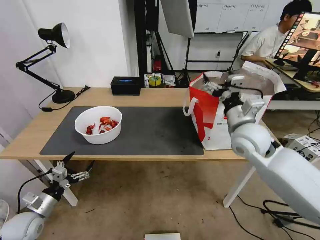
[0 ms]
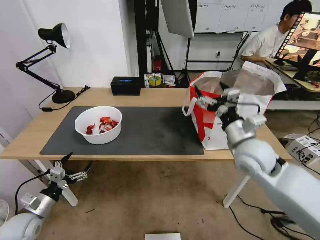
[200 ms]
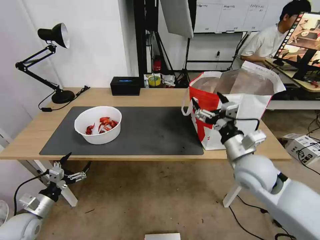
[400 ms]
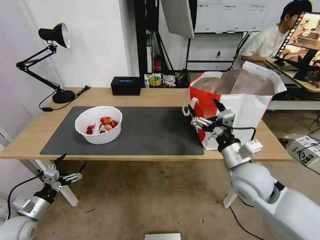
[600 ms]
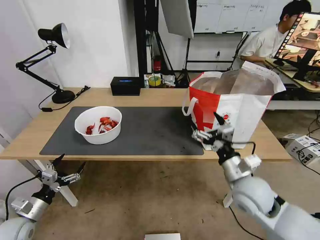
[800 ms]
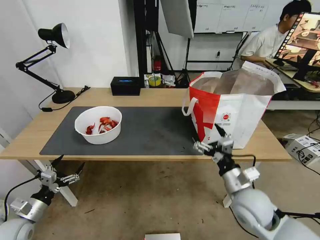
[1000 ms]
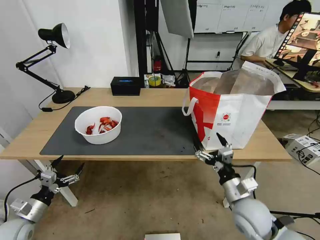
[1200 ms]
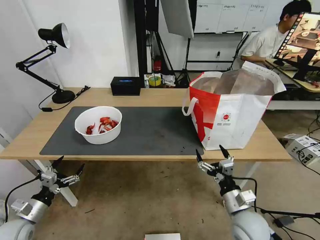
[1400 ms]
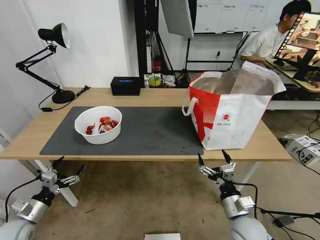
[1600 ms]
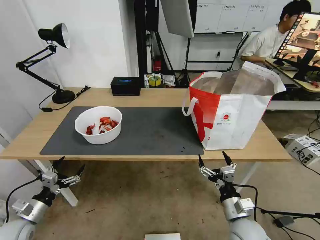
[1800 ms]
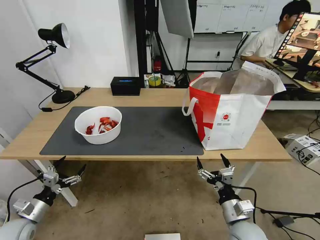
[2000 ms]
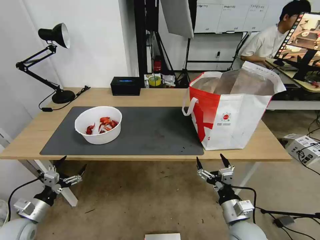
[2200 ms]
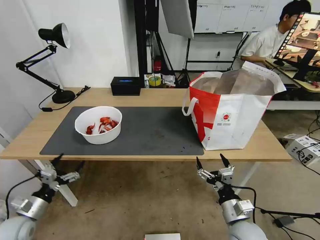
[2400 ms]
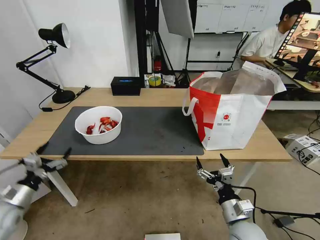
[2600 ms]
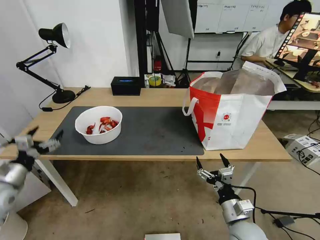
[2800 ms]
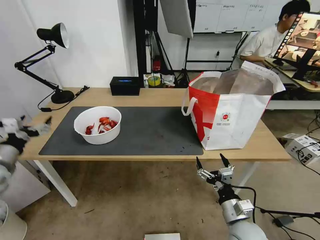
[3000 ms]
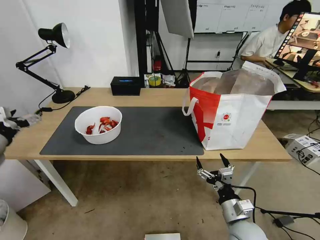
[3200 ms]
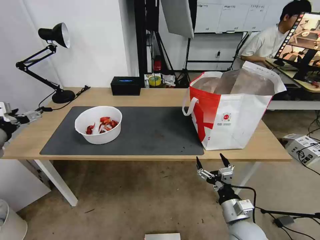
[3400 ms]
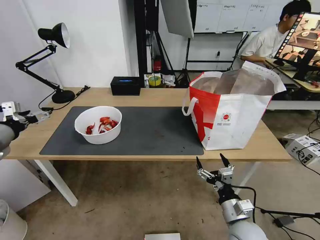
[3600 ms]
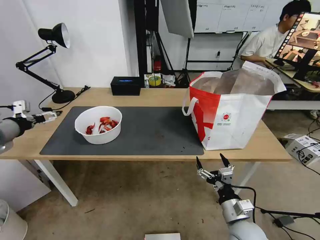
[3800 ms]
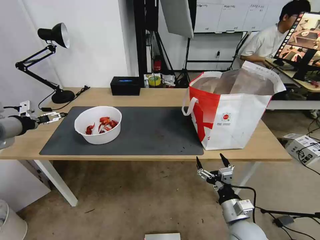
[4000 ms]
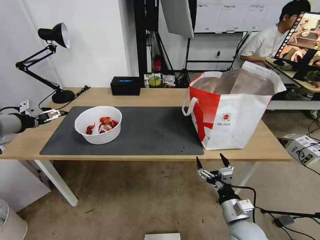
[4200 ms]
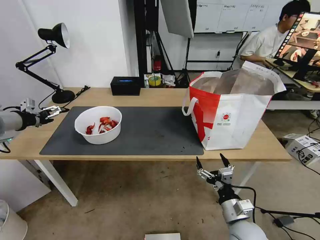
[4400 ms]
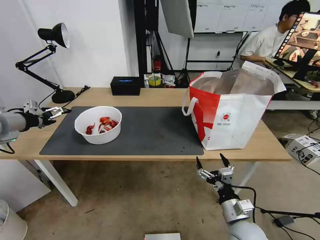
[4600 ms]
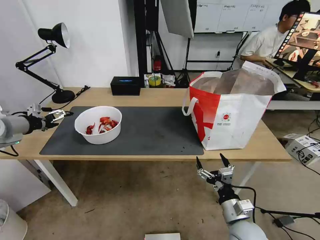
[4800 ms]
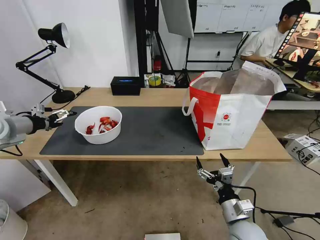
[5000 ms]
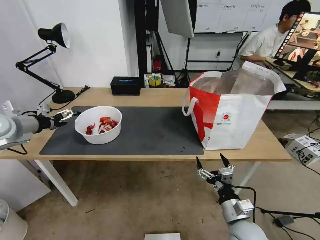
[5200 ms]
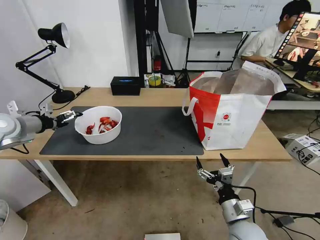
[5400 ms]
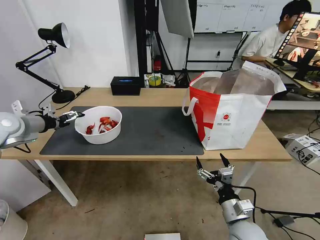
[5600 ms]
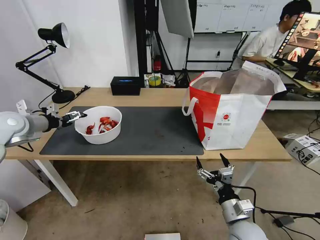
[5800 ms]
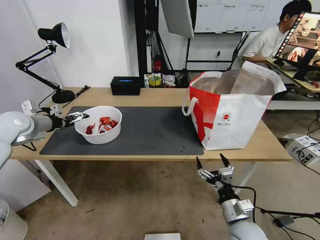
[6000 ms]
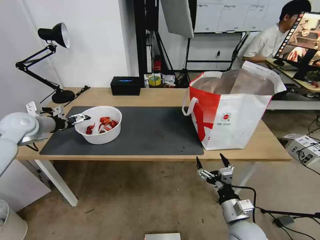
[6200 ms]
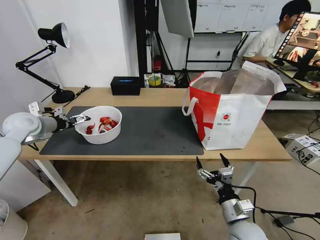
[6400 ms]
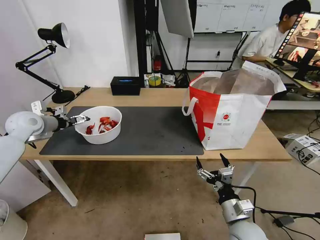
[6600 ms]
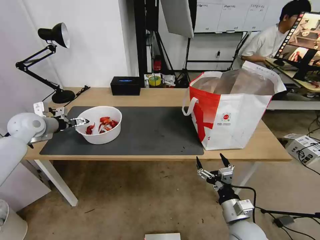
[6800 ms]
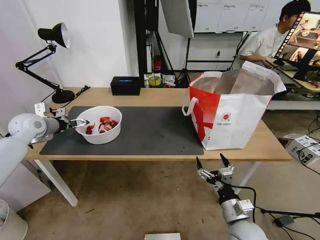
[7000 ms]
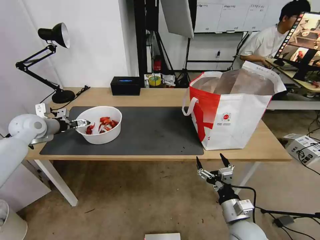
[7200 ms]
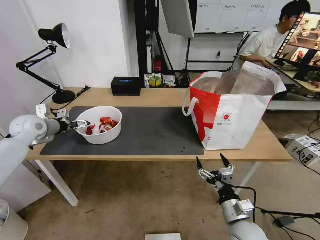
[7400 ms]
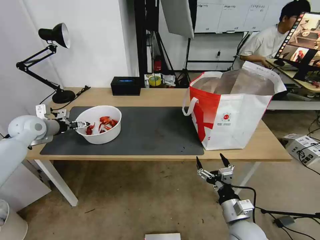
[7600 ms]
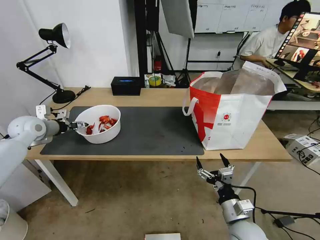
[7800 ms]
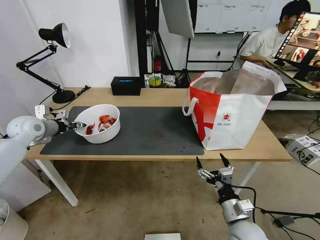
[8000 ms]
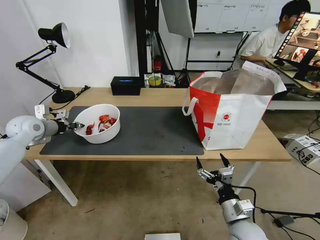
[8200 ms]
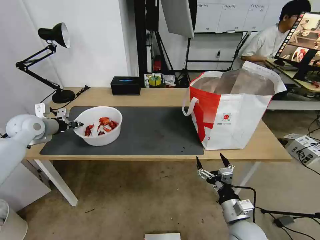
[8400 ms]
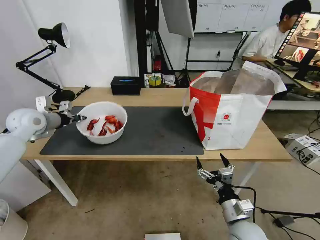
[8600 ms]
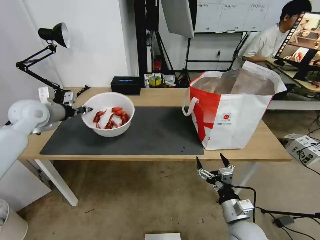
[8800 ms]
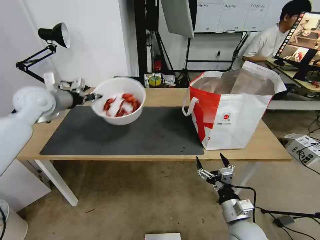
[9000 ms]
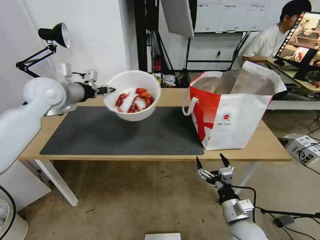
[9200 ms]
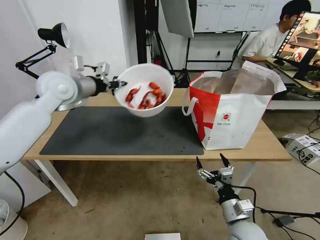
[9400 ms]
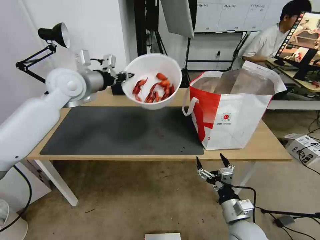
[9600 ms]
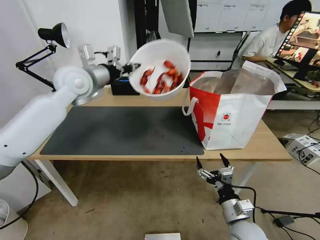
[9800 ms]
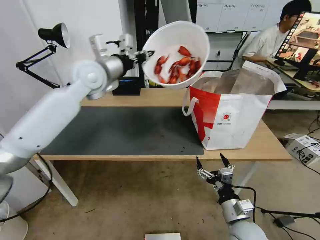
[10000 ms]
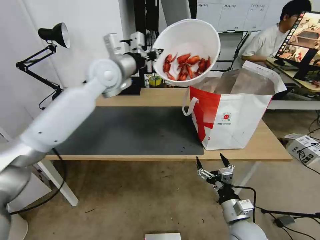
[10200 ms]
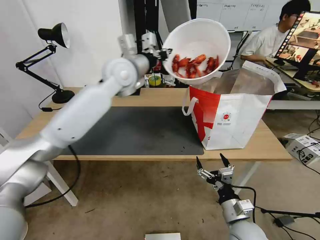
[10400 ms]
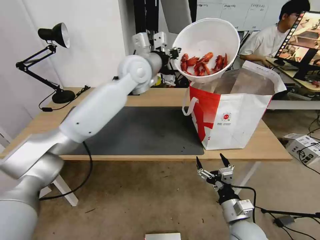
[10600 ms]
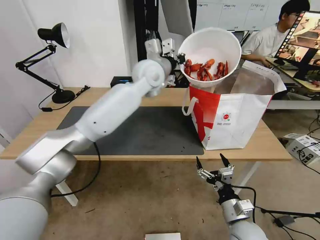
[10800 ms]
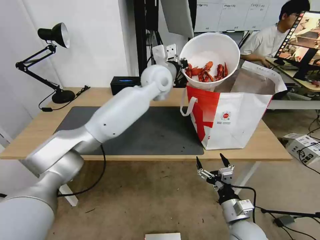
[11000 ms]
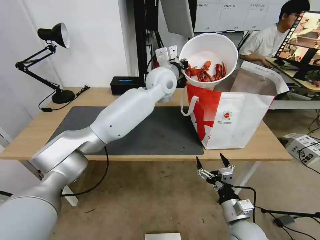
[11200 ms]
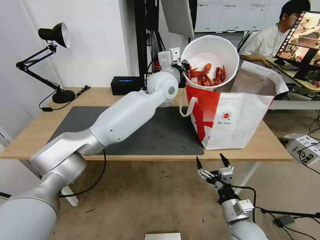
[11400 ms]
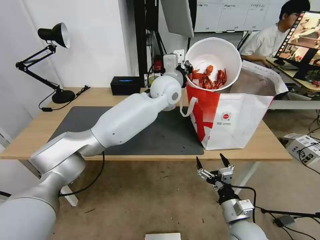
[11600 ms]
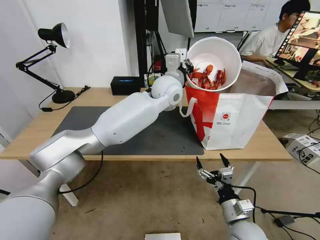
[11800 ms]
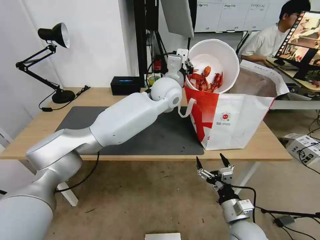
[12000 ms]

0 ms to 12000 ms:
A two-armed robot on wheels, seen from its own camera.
Task of the whole recording: Pick up the trash from the table and place it into the takeout bag.
0 ms to 1600 ms: The right gripper shifts some 30 cm downward and backward.
1600 ms to 3000 ms: The left gripper moves upward and forward, roughly 20 cm.
3000 ms to 4400 ms: The left gripper heads upward and forward, covering approximately 15 cm.
4400 ms to 6000 ms: The left gripper is displaced forward and downward by approximately 10 cm.
6000 ms to 7600 ms: There are only small adjustments of the grippers.
7600 ms to 9000 ms: The left gripper is displaced upward and to the right by some 15 cm, and closes its fingers.
9000 ms to 10400 ms: The left gripper moves to the right, about 25 cm.
10400 ms to 12000 ms: The left gripper is displaced to the right and downward by some 15 cm.

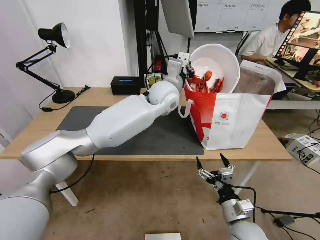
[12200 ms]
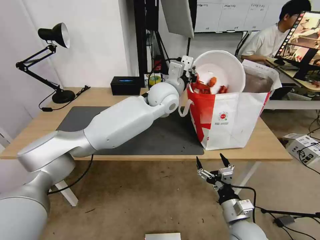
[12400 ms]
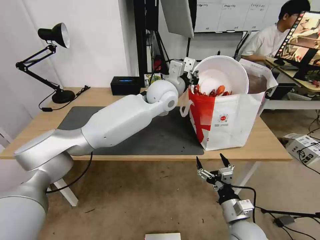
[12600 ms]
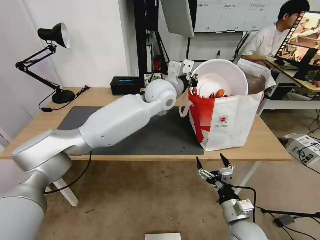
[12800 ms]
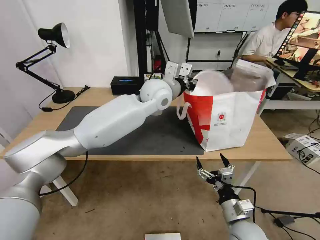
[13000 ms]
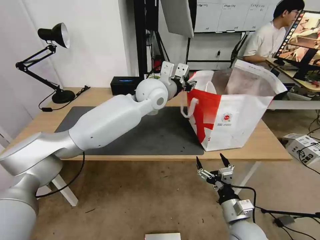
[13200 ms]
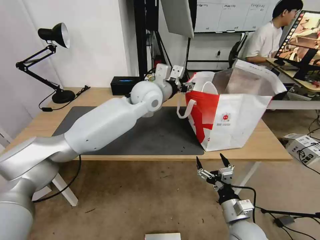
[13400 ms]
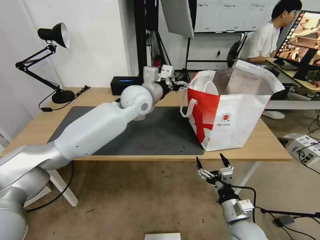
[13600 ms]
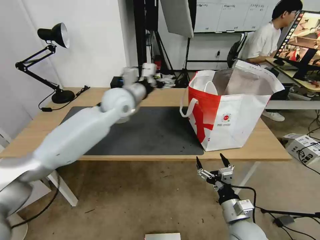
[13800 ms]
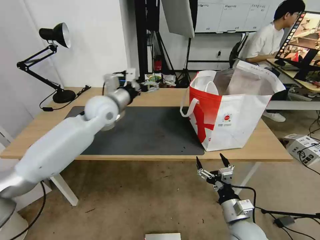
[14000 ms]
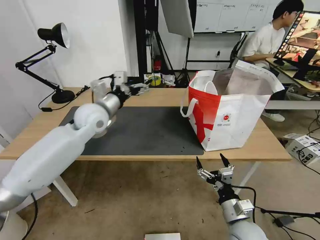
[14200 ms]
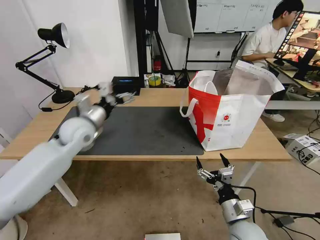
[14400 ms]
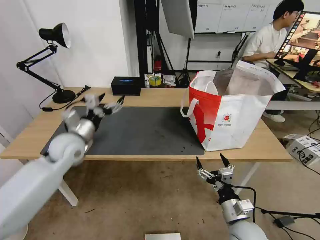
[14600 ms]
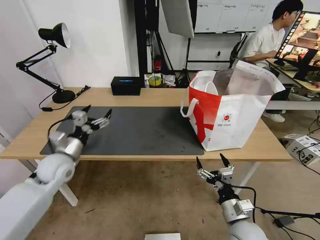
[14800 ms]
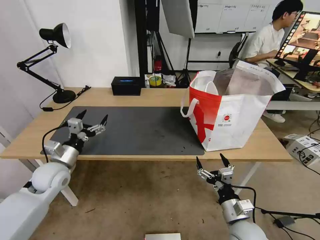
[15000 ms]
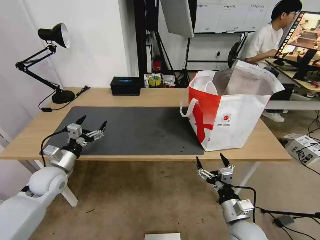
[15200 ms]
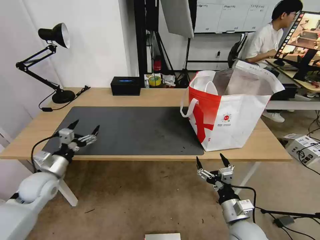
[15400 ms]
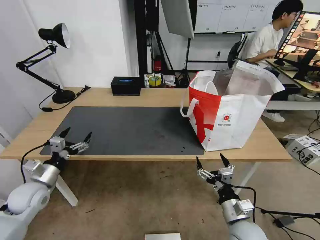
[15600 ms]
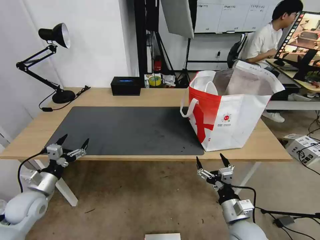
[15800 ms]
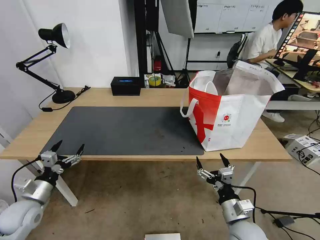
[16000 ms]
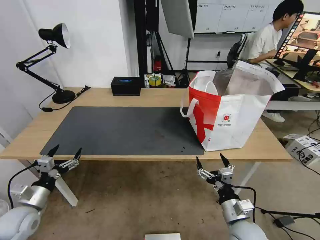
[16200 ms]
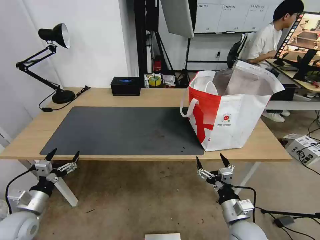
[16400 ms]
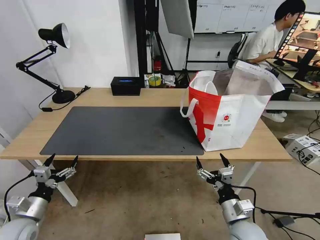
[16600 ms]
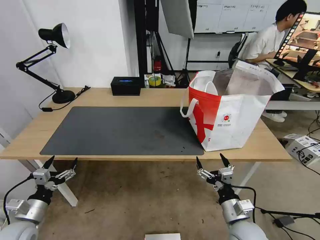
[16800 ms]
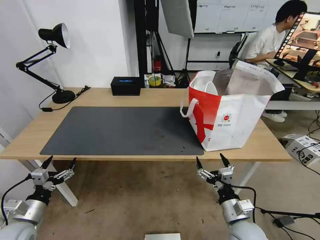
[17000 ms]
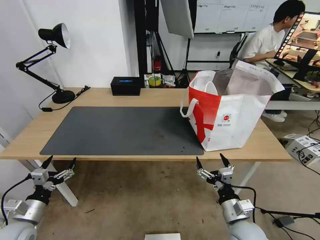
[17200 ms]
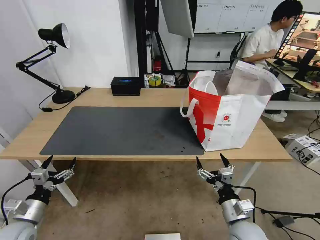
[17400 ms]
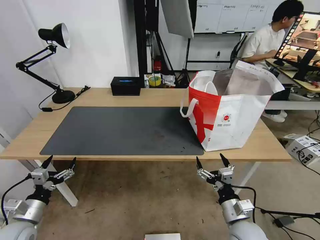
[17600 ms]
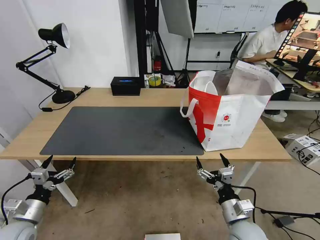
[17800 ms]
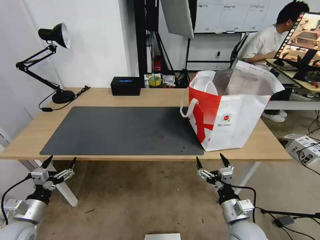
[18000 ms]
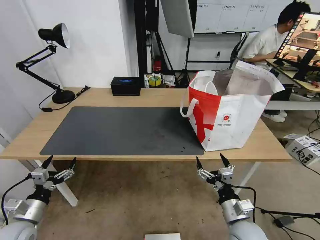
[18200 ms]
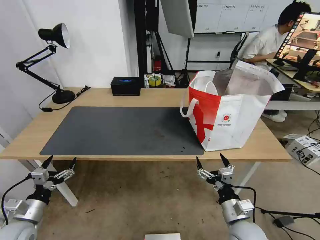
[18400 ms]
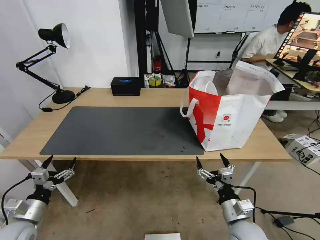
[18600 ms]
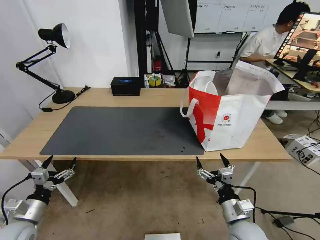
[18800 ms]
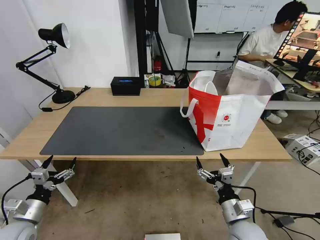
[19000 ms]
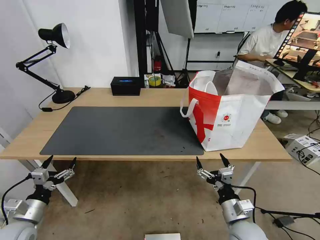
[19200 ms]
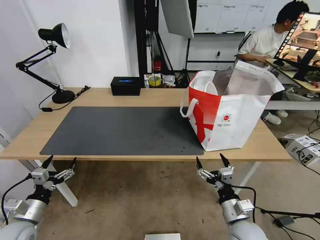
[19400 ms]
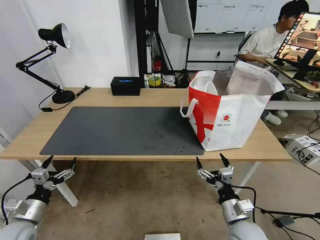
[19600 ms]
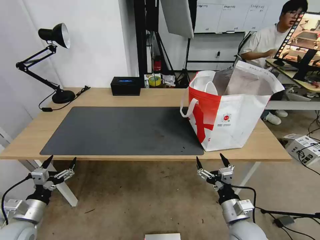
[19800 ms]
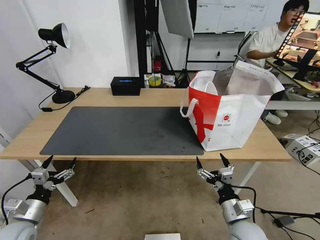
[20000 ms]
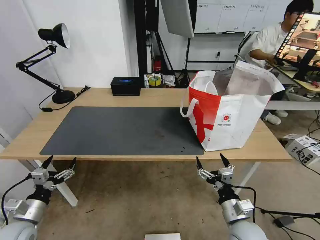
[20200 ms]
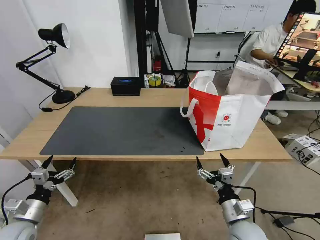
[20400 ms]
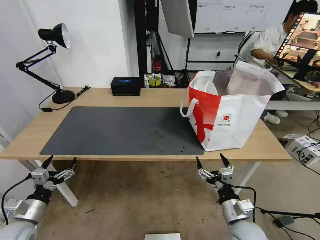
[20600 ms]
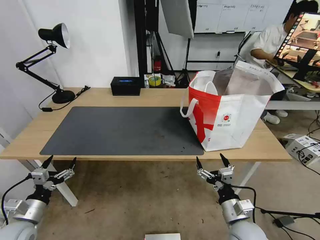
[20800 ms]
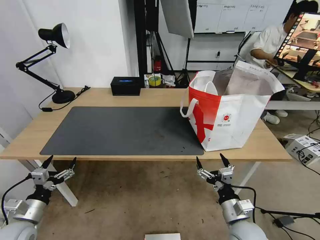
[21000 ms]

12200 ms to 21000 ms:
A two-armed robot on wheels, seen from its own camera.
Task of the whole recording: Pick up the trash from the table and place it into the takeout bag.
12200 ms to 13600 ms: The left gripper shifts some 10 cm to the left, and opens up.
13600 ms to 15200 ms: The left gripper goes roughly 40 cm to the left, downward and backward.
15200 ms to 16600 ms: The left gripper is displaced backward, downward and to the left by some 15 cm.
16600 ms to 21000 ms: Both grippers stay put.

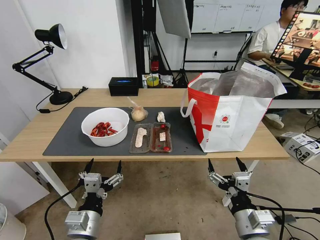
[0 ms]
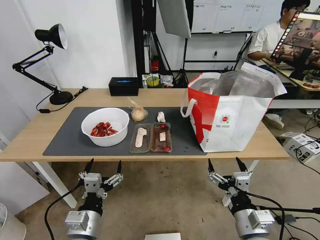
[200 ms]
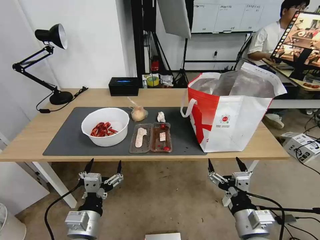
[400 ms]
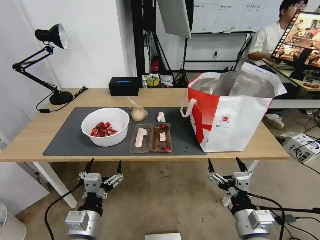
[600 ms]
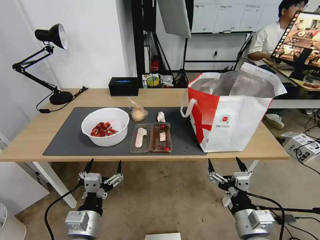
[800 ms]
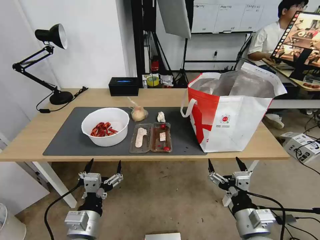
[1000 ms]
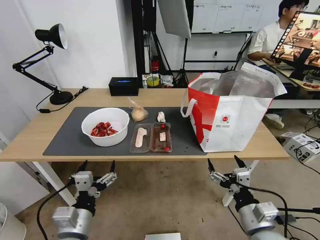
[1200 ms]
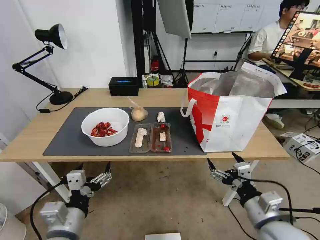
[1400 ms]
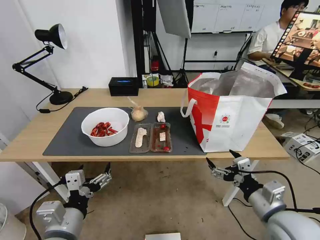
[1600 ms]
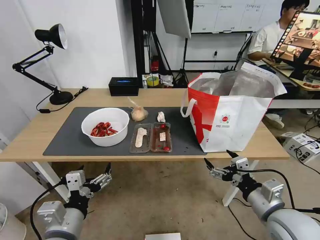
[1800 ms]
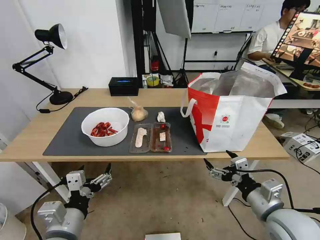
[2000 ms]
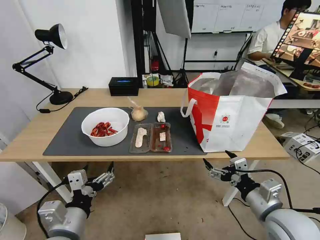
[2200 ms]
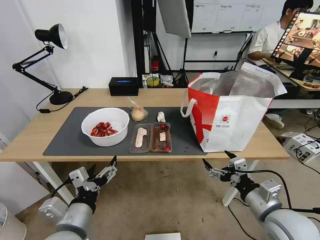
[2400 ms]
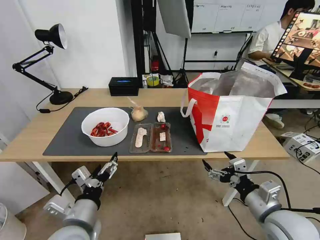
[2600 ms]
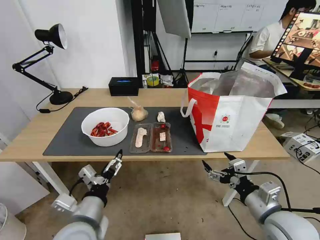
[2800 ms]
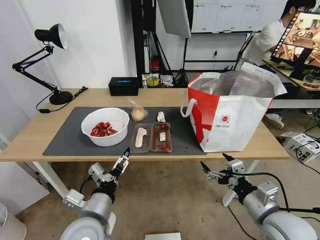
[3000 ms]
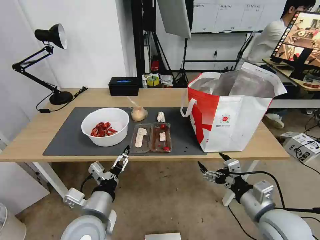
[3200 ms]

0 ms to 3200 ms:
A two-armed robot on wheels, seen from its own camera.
Task of the whole recording: Pick up the trash from the table and place it into the takeout bag.
1600 ms to 3200 ms: The left gripper ends up about 5 cm from where it was.
